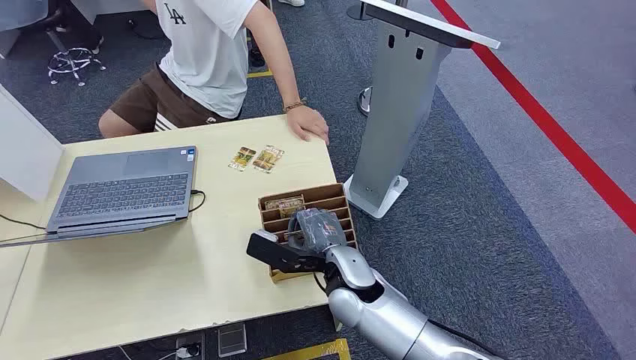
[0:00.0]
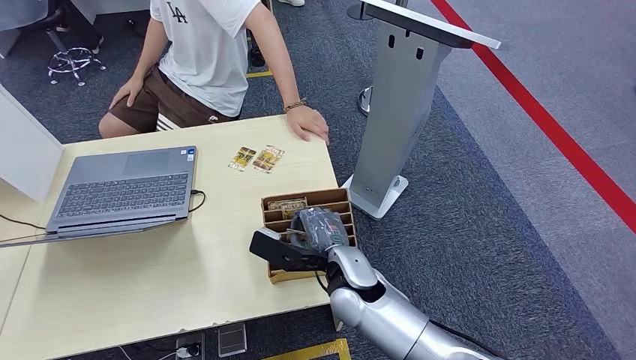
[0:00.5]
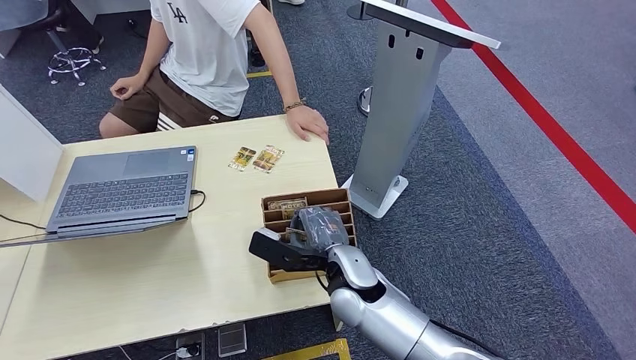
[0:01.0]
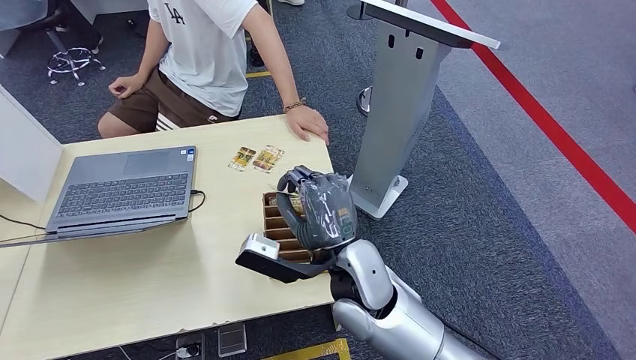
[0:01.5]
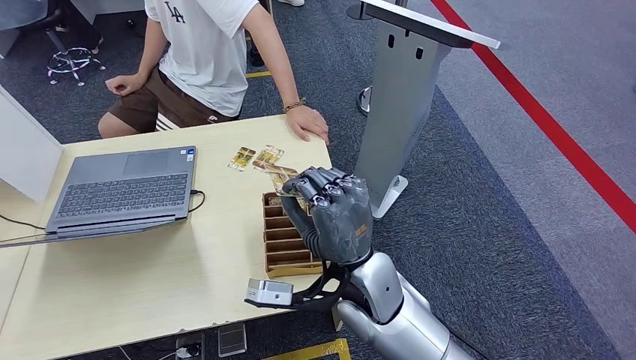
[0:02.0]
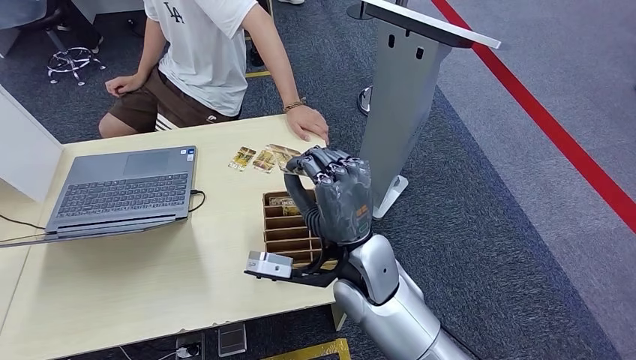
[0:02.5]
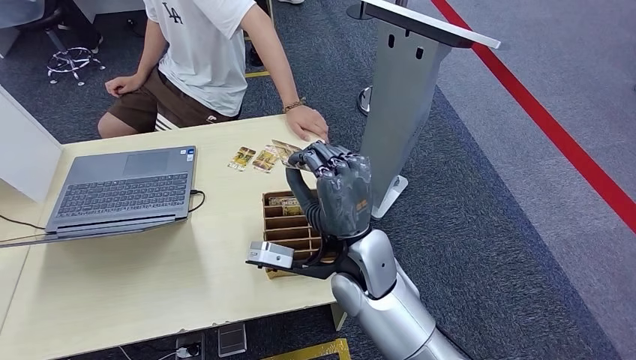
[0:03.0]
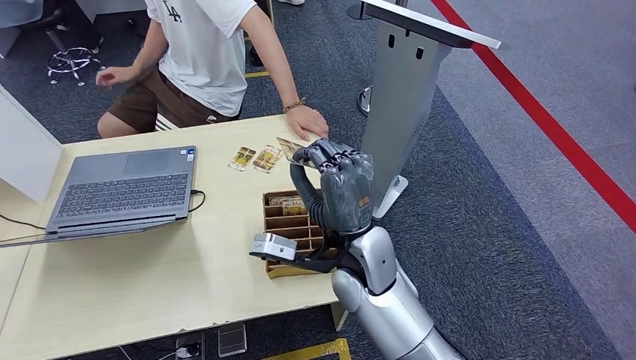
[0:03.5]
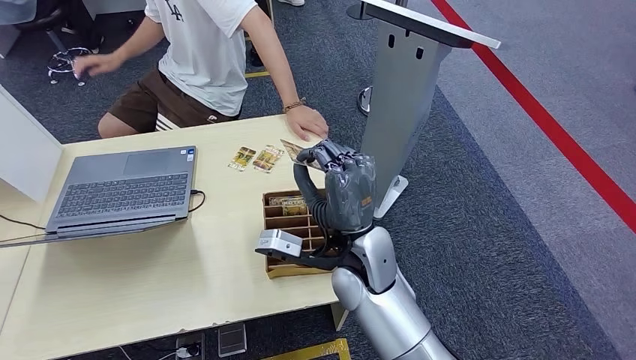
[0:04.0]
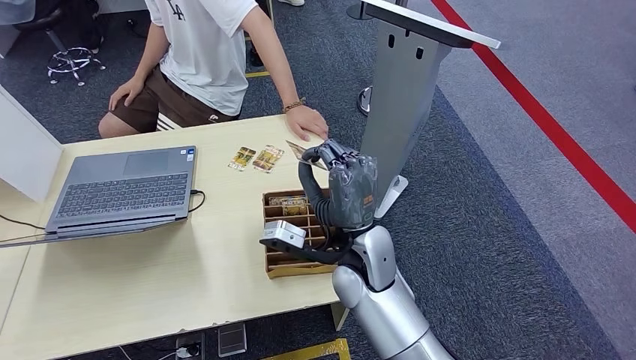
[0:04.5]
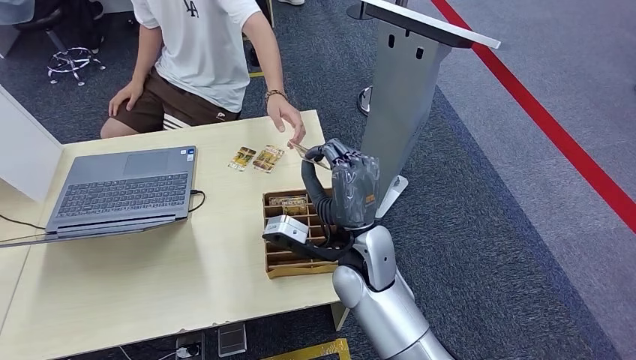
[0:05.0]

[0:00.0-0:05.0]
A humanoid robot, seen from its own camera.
Step, 0:00.0 to 0:02.5: Pick up the room card from the card holder.
Step, 0:03.0 to 0:05.0: Hand the room card to the target.
0:02.5 to 0:05.0: The hands make only small movements.

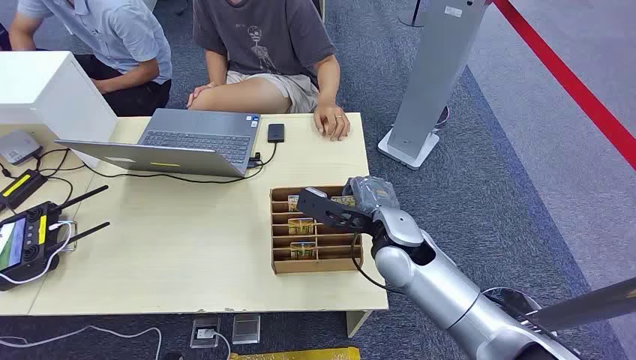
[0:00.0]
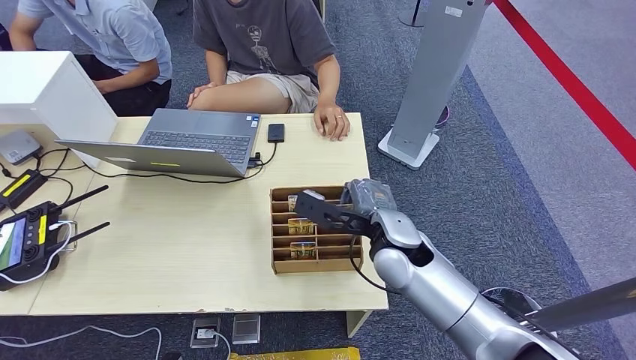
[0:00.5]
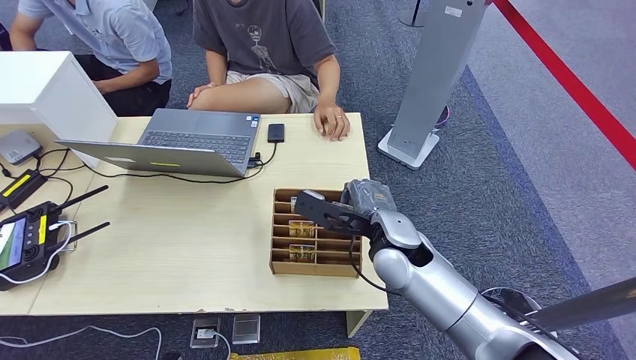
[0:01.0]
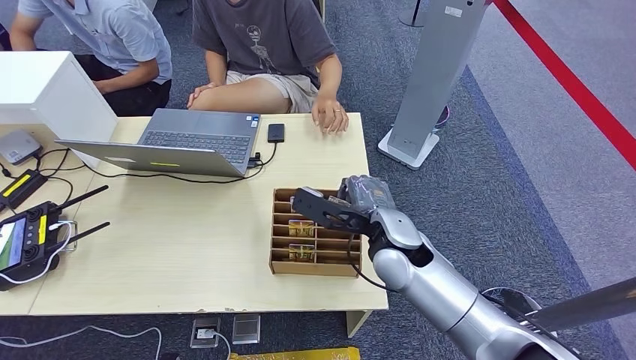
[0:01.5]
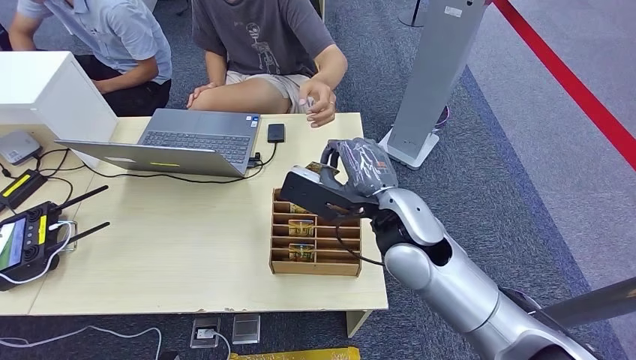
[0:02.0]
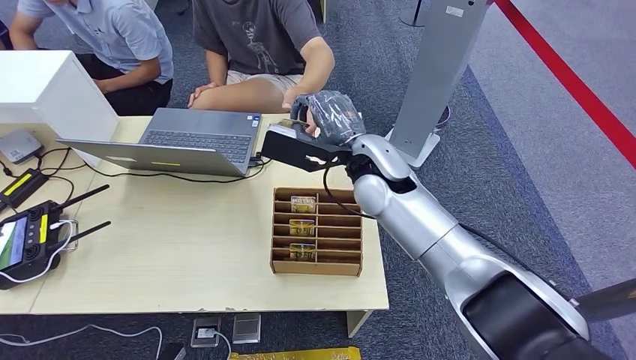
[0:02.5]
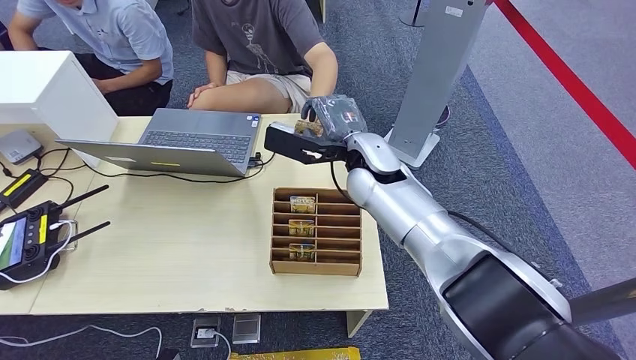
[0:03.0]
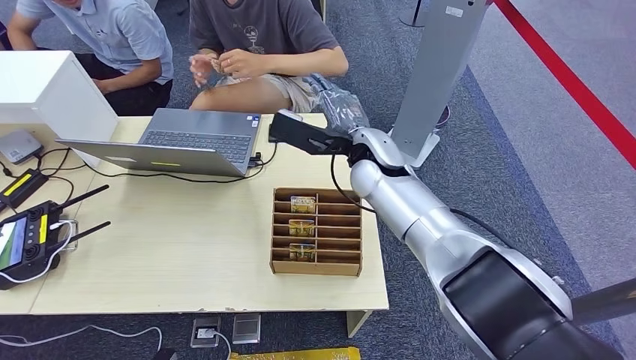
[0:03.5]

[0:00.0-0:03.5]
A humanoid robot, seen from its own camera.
Step, 0:00.0 to 0:01.5: Pick up the room card from the card holder.
Step, 0:02.5 to 0:03.5: Hand the room card to the target.
0:02.0 to 0:03.5: The right hand goes approximately 10 cm forward.
